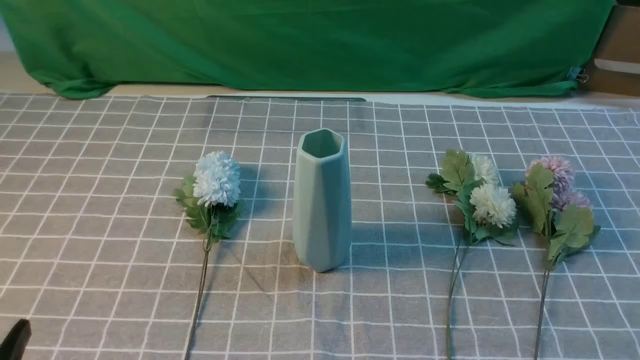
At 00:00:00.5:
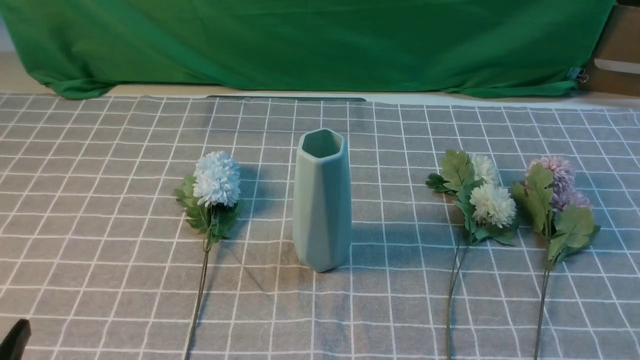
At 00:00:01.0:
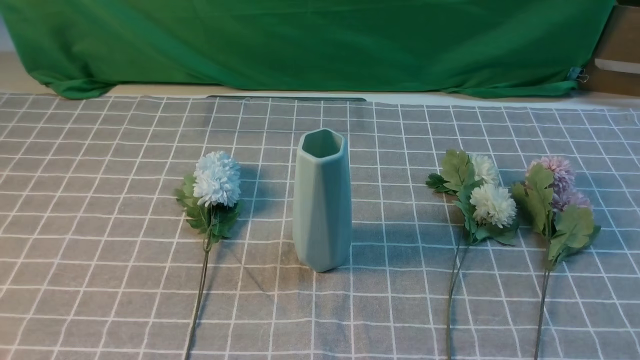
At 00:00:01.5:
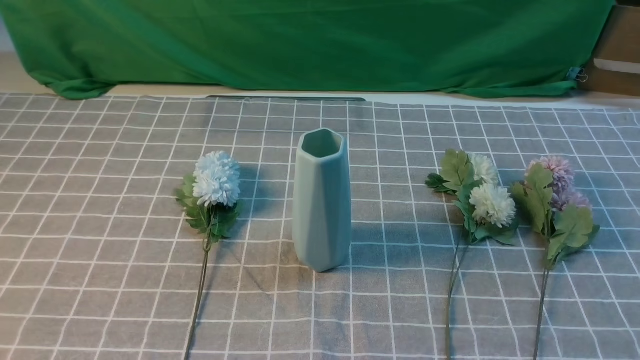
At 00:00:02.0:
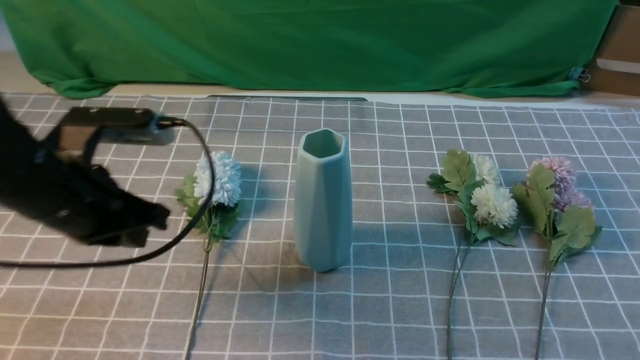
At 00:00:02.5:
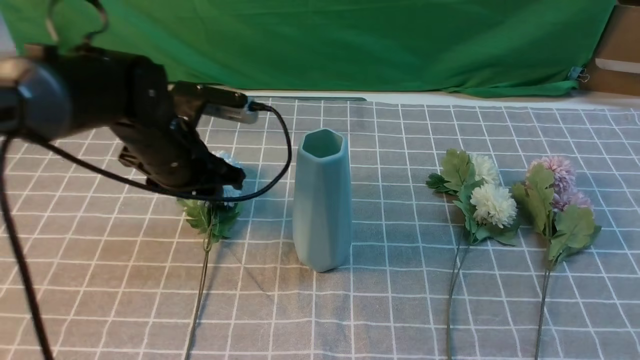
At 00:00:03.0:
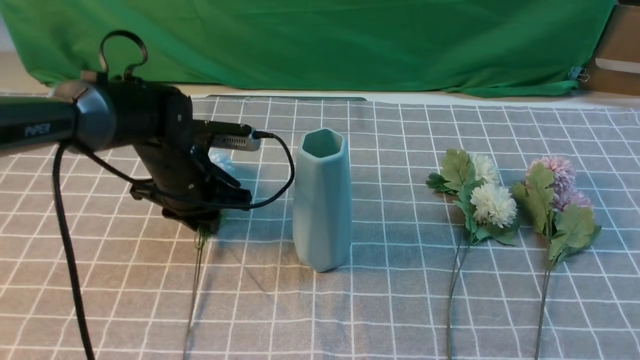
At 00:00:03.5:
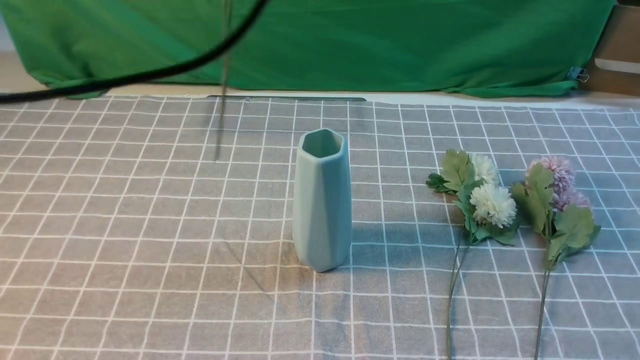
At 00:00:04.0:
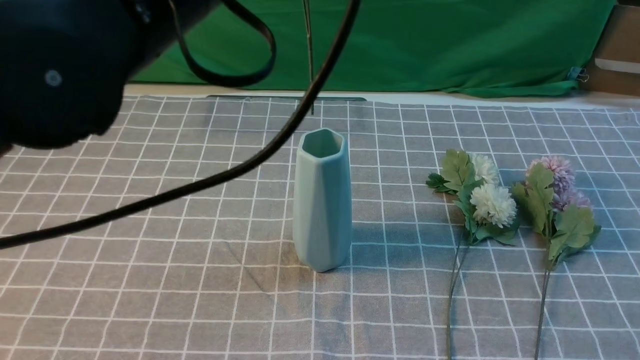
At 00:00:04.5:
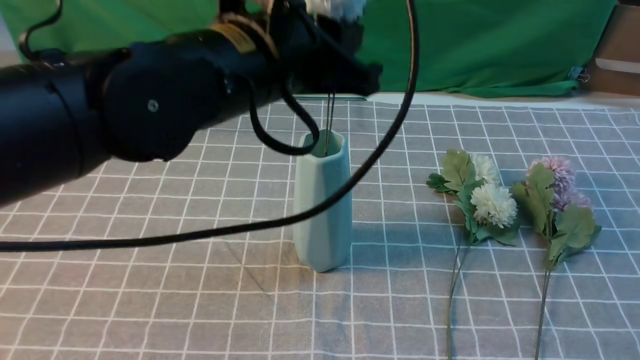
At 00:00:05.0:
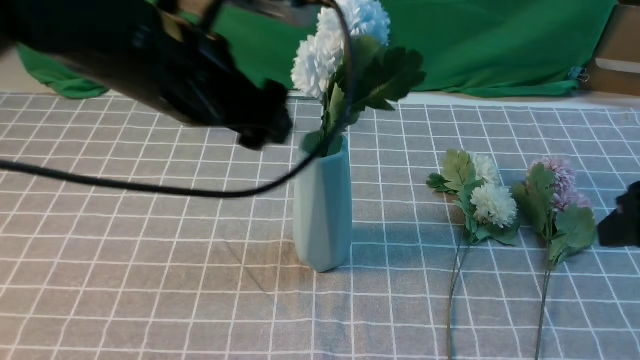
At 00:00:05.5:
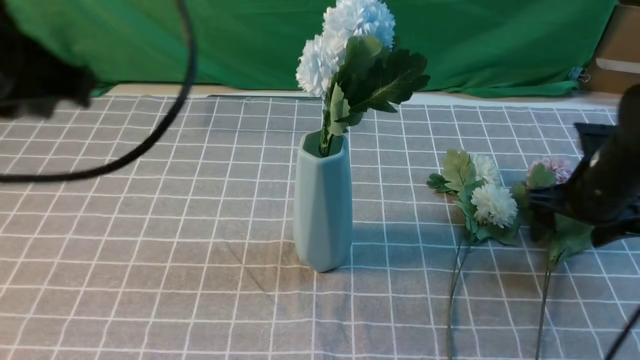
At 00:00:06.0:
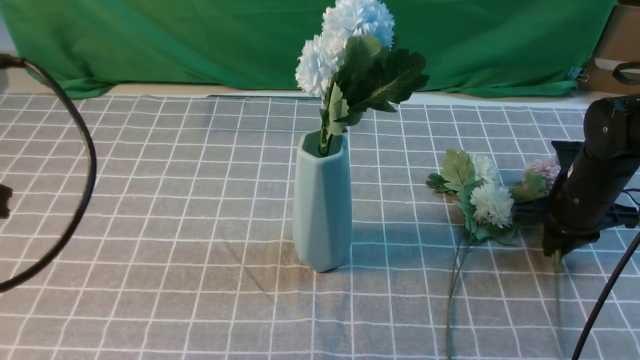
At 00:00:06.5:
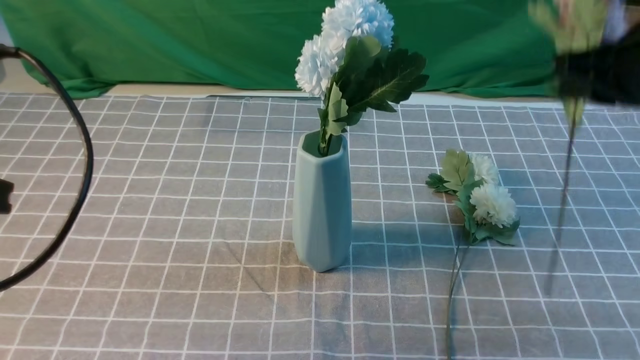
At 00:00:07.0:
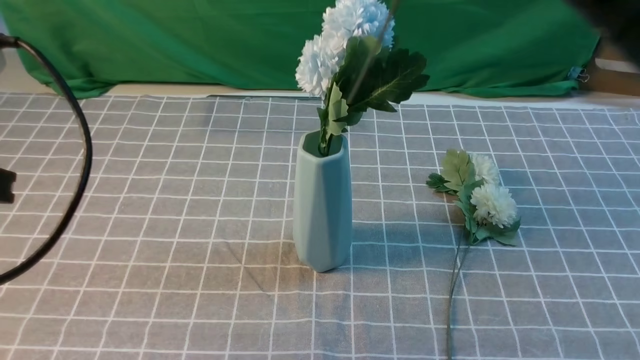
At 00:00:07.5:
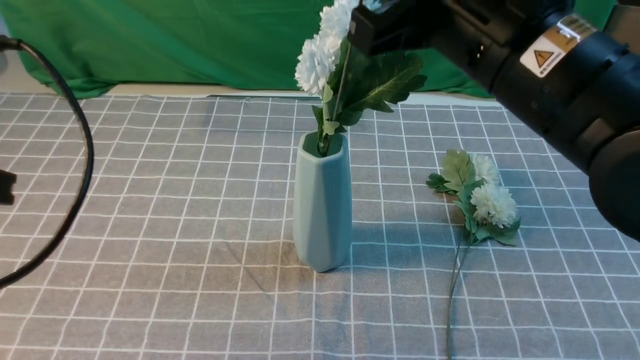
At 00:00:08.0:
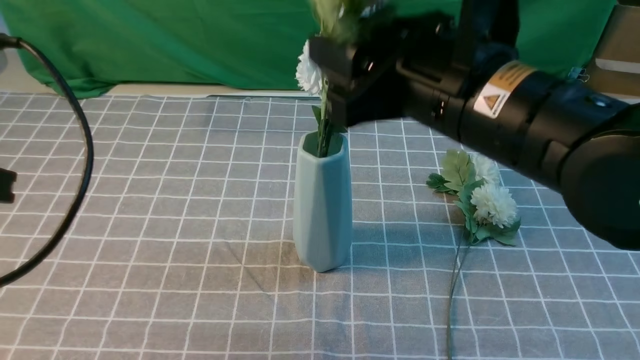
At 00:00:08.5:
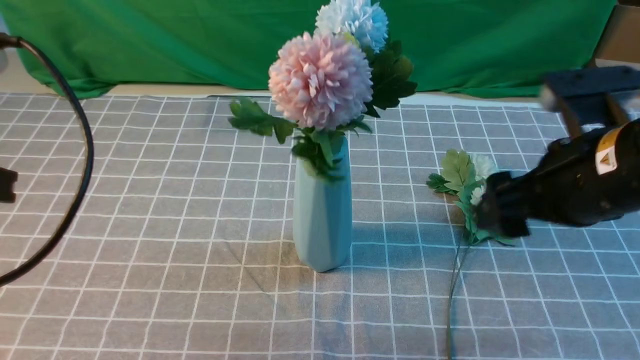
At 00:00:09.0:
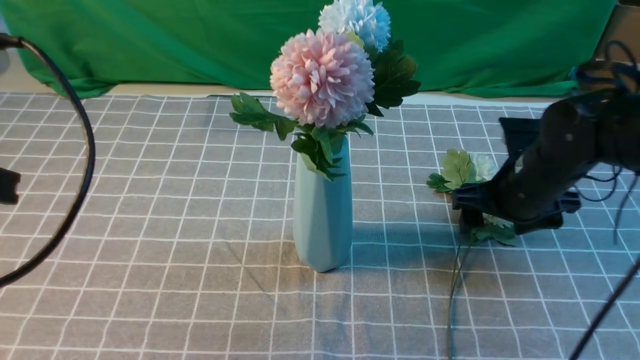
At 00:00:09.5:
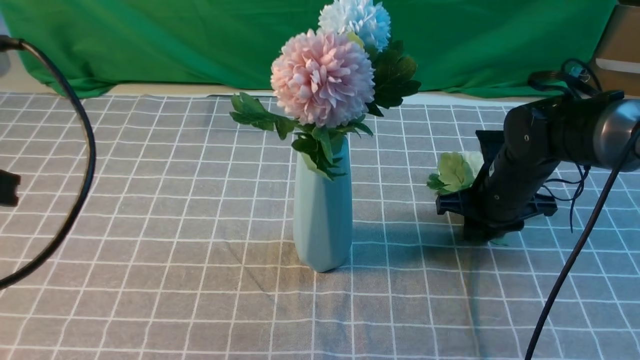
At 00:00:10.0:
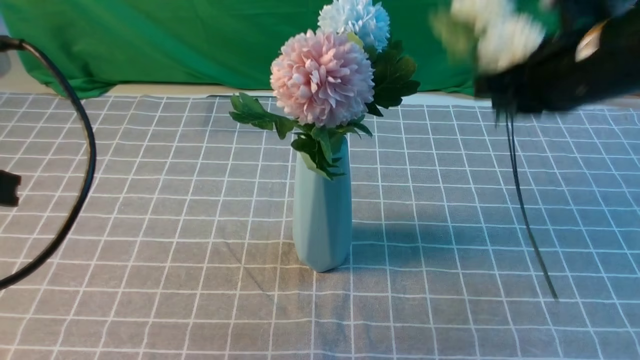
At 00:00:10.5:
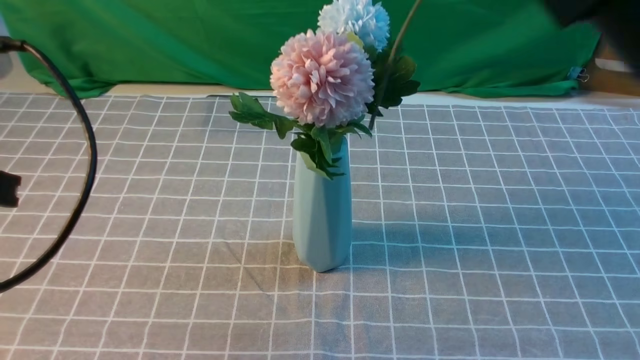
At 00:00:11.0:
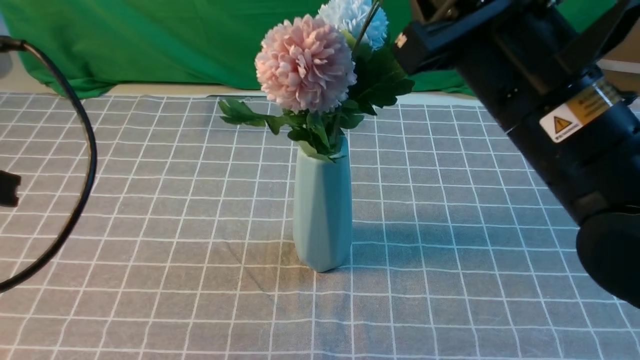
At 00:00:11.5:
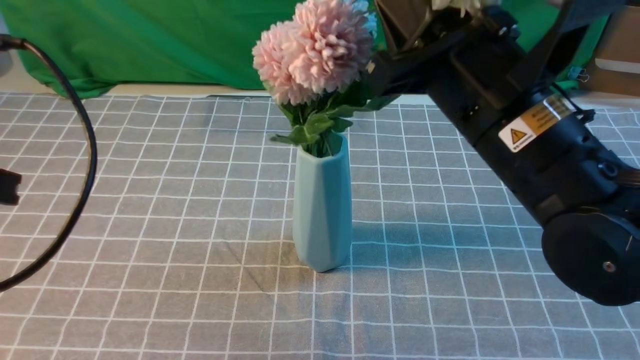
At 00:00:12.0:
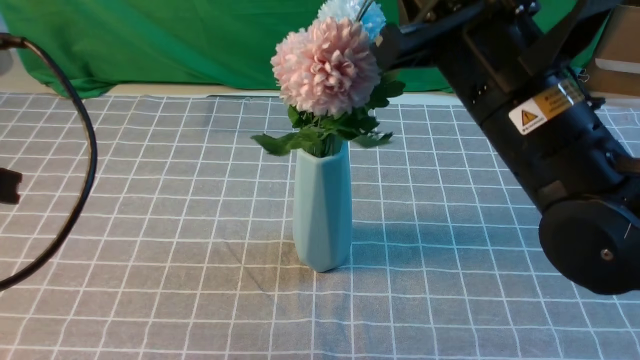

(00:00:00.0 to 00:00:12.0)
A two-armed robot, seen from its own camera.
Task of the whole recording: insert the flowers into the vase on the table with the grey tablecloth.
Step, 00:00:00.0 - 00:00:03.0: use the left arm to grab a bunch of fresh flowers.
Step, 00:00:03.5 - 00:00:04.5: use the left arm to insert the flowers into the vase.
Step, 00:00:06.0 - 00:00:08.0: use the right arm to insert the flowers into the vase.
Step, 00:00:08.5 - 00:00:09.5: use the right arm to grab a bunch of fresh flowers.
00:00:00.0 - 00:00:02.0: The left gripper is displaced forward by some 20 cm, and closes up; the right gripper is displaced upward by roughly 10 cm.
00:00:02.0 - 00:00:04.0: The left gripper travels upward and to the right by about 20 cm, and opens, then closes once more; the right gripper travels upward and forward by roughly 10 cm.
00:00:04.0 - 00:00:06.0: The right gripper moves forward and downward, roughly 30 cm, and opens, then closes again. The left gripper travels to the left and backward by roughly 20 cm, and opens and closes again.
00:00:06.0 - 00:00:08.0: The right gripper travels upward, to the left and backward by some 30 cm, and opens up.
00:00:08.0 - 00:00:10.0: The right gripper travels to the right and forward by some 10 cm, goes downward and returns, roughly 20 cm each way, and closes up.
00:00:10.0 - 00:00:12.0: The right gripper travels to the left and backward by approximately 10 cm.

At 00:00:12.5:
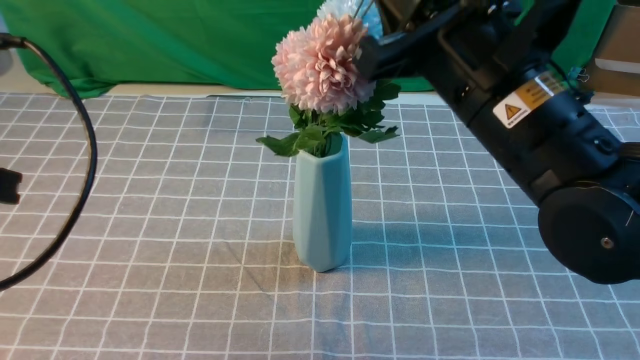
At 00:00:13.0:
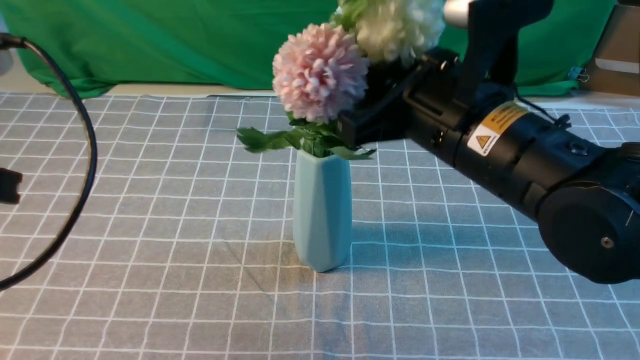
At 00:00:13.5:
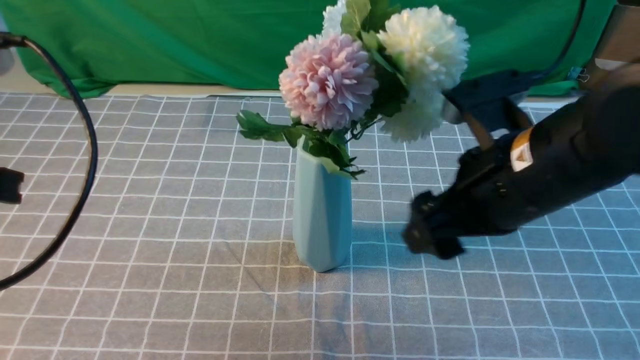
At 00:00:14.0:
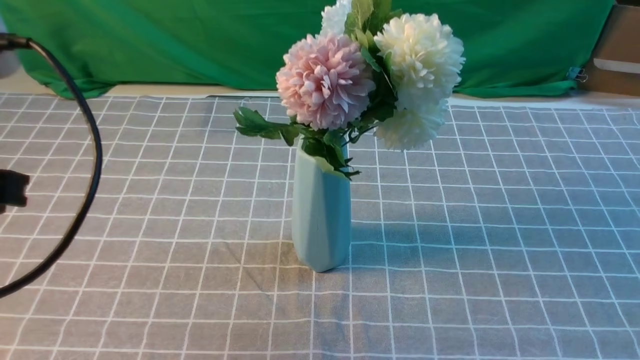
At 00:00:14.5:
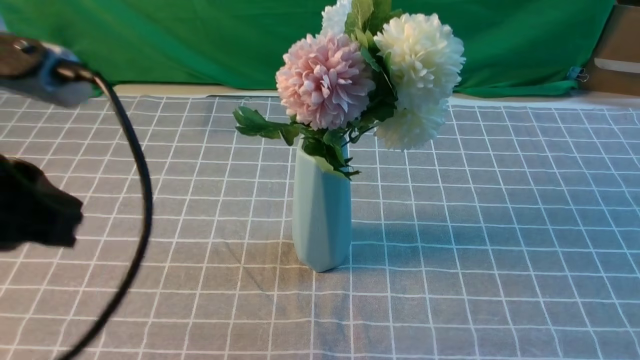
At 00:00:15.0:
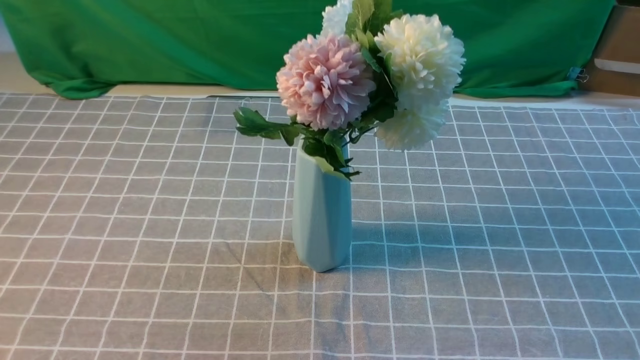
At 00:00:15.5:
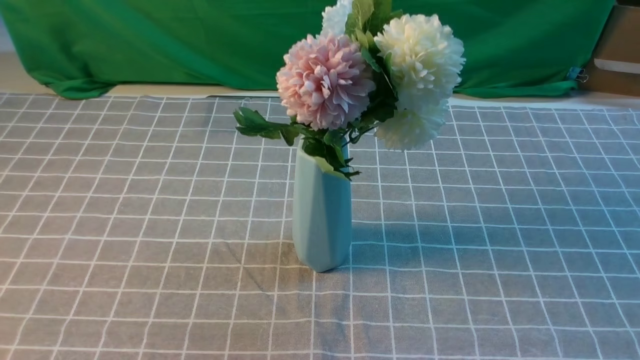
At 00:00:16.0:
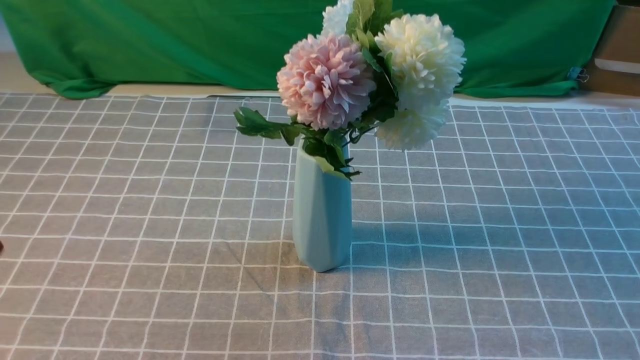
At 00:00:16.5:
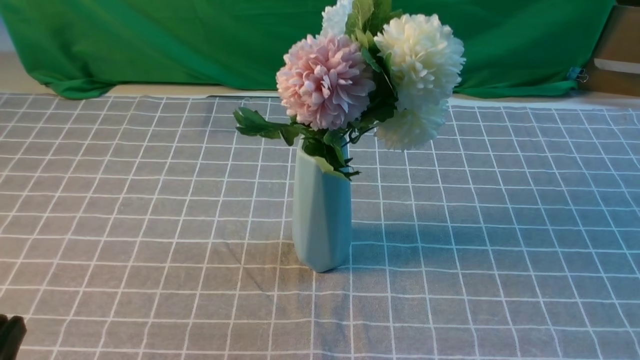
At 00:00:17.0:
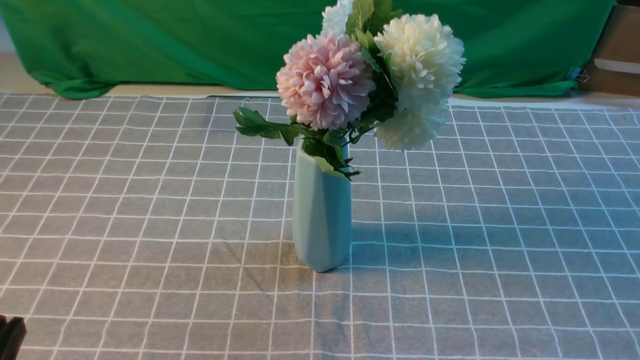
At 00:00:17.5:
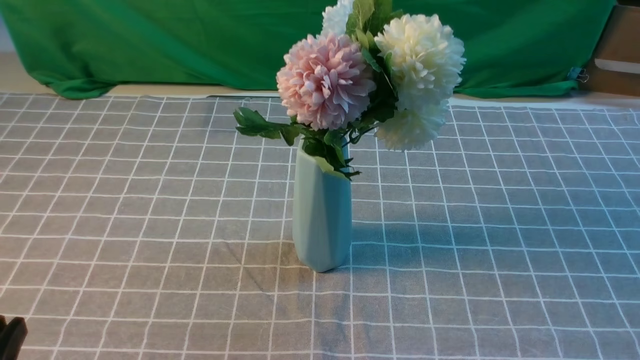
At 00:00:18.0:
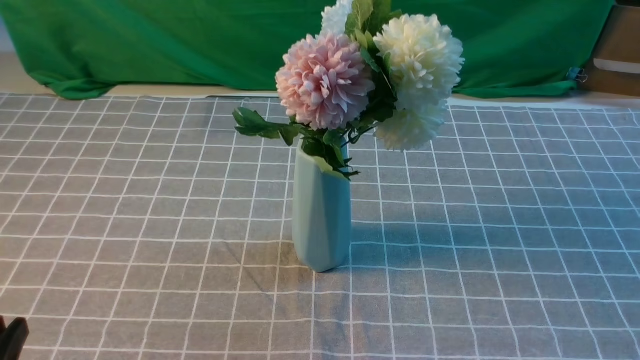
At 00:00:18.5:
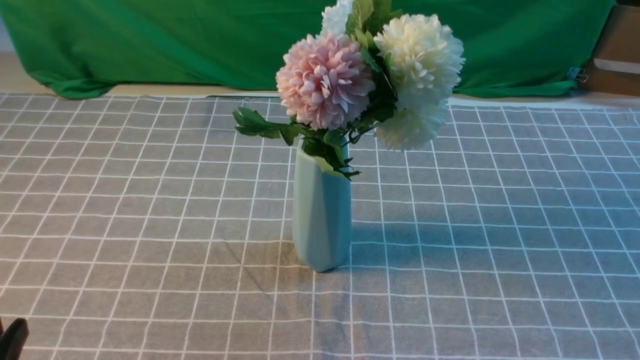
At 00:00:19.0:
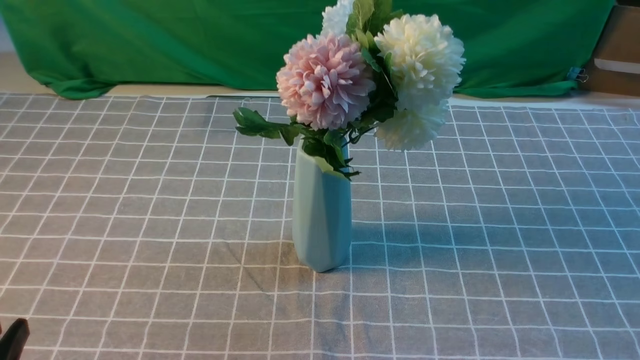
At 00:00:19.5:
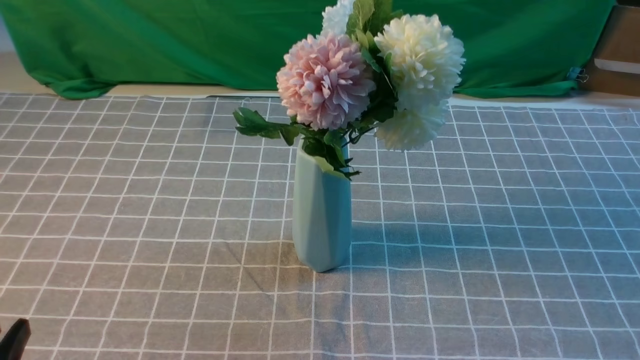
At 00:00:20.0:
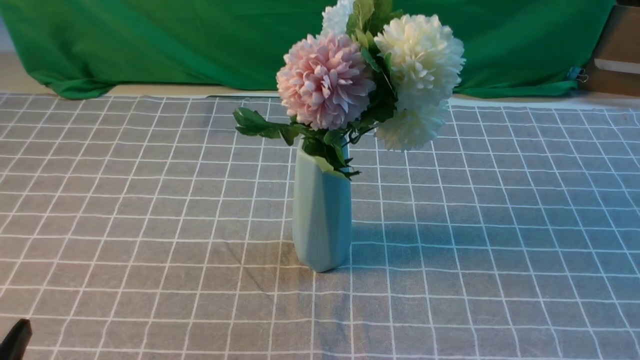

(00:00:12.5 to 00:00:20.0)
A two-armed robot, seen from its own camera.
Task of the whole recording: insert the flowers into the vase on the table with the grey tablecloth.
00:00:12.5 - 00:00:14.5: The right gripper moves backward and to the right, roughly 30 cm, and opens, then closes again.
00:00:14.5 - 00:00:16.5: The left gripper shifts about 20 cm downward and backward.
